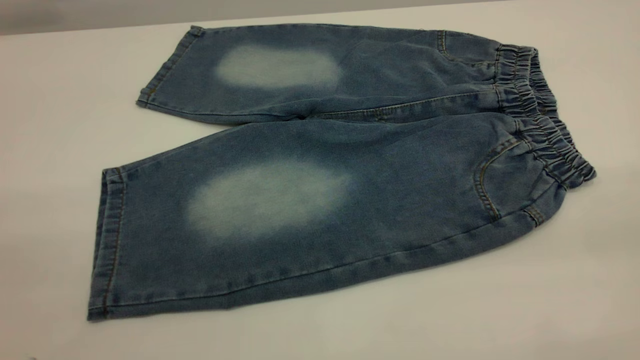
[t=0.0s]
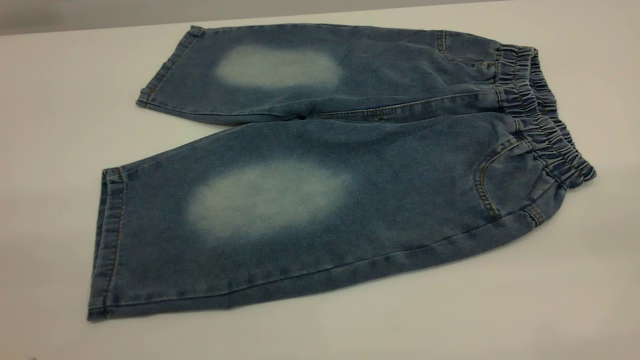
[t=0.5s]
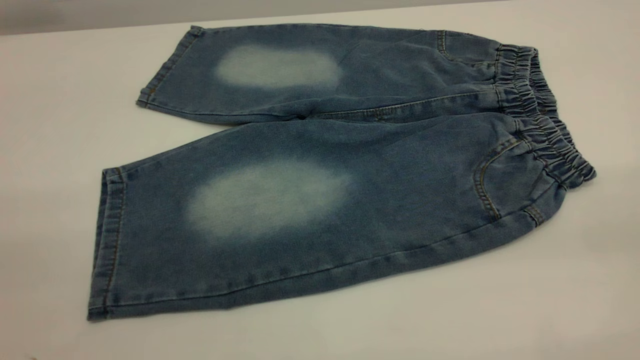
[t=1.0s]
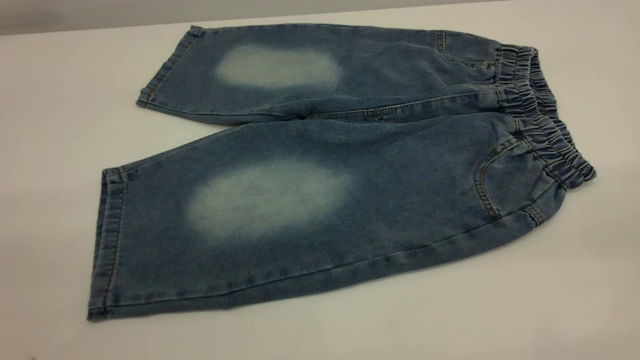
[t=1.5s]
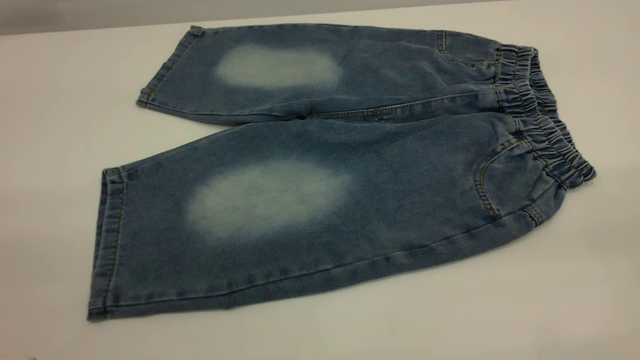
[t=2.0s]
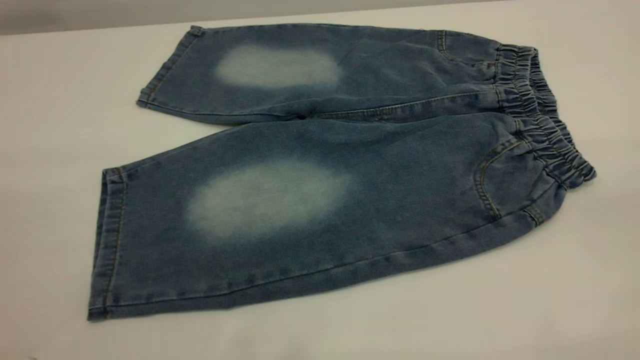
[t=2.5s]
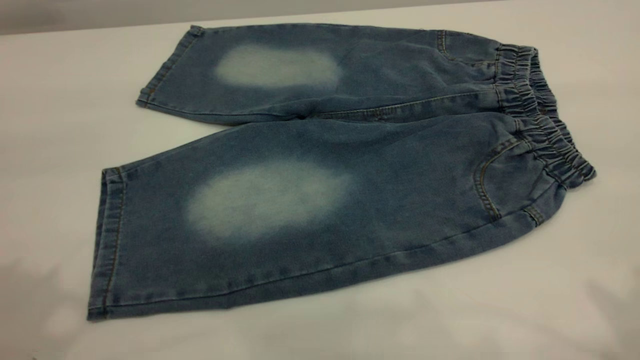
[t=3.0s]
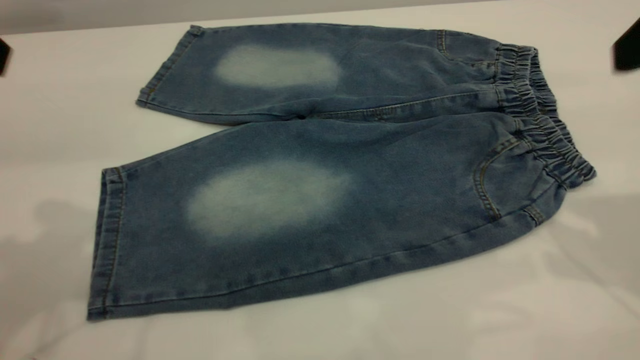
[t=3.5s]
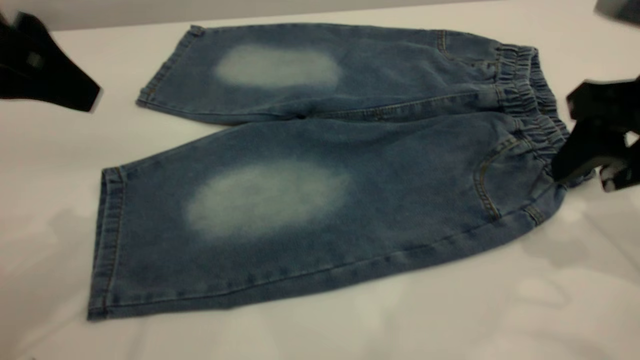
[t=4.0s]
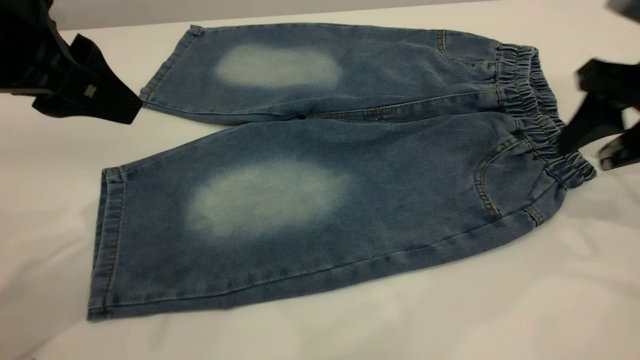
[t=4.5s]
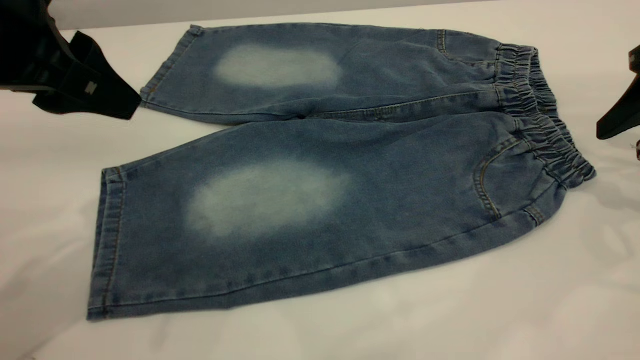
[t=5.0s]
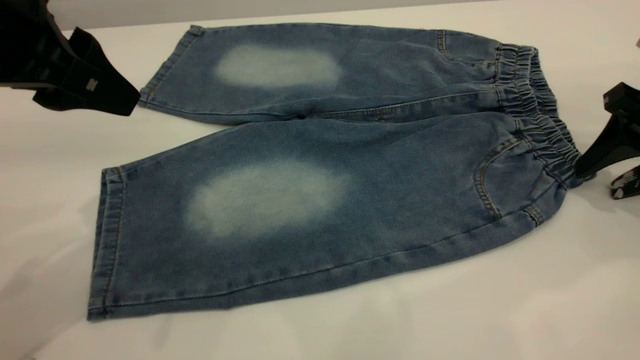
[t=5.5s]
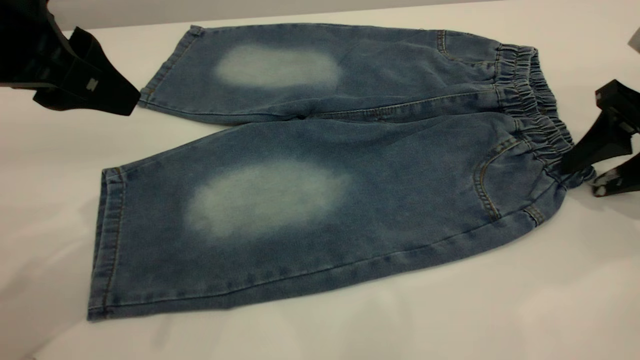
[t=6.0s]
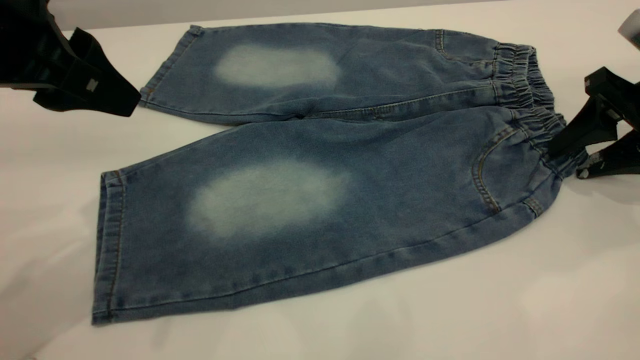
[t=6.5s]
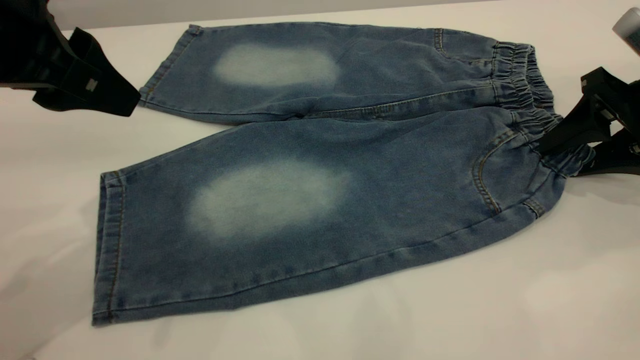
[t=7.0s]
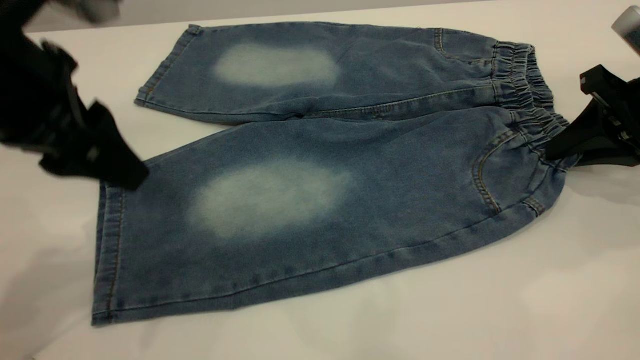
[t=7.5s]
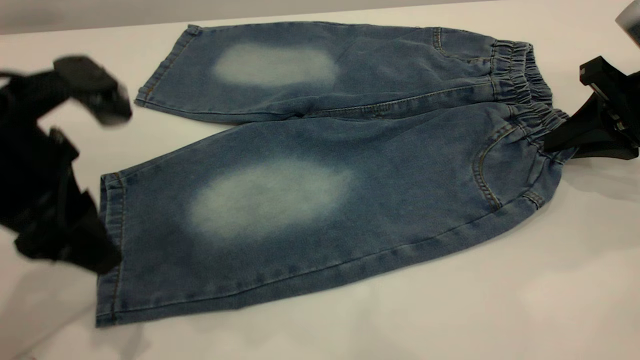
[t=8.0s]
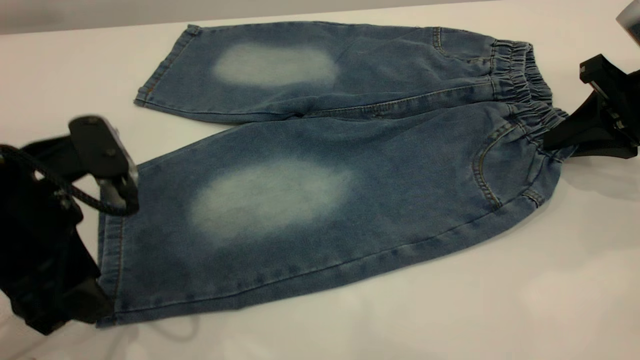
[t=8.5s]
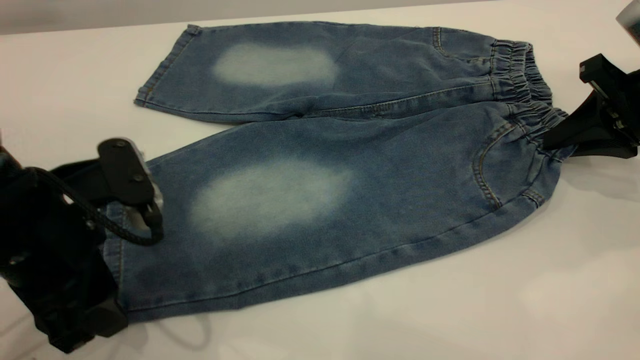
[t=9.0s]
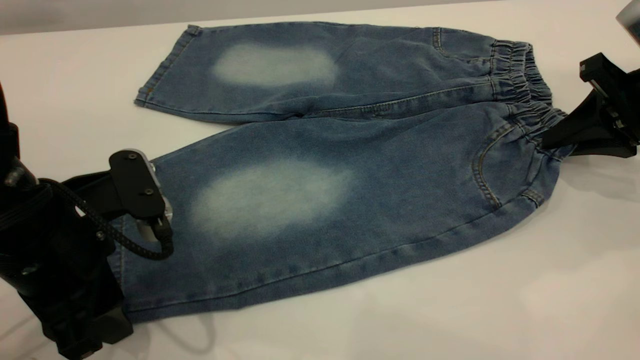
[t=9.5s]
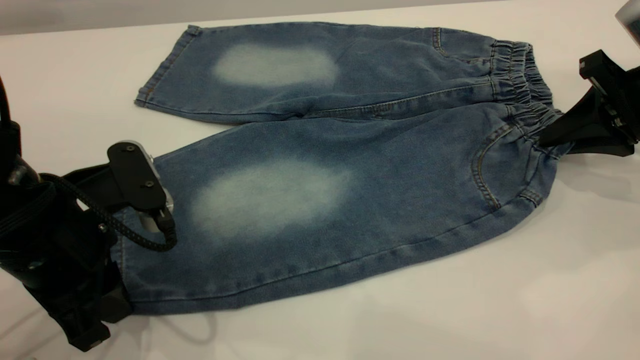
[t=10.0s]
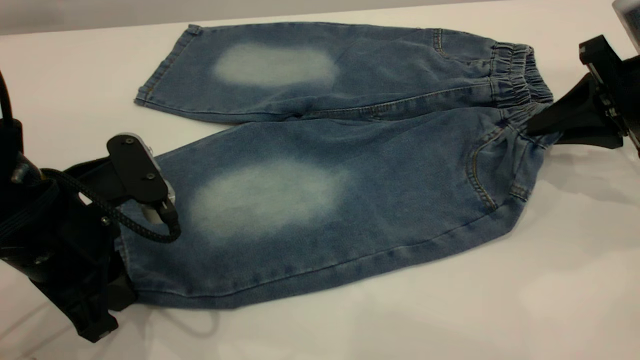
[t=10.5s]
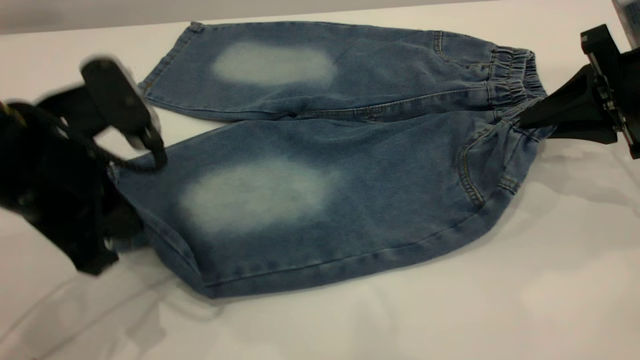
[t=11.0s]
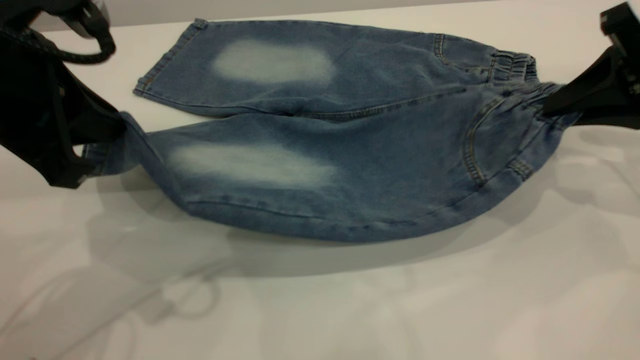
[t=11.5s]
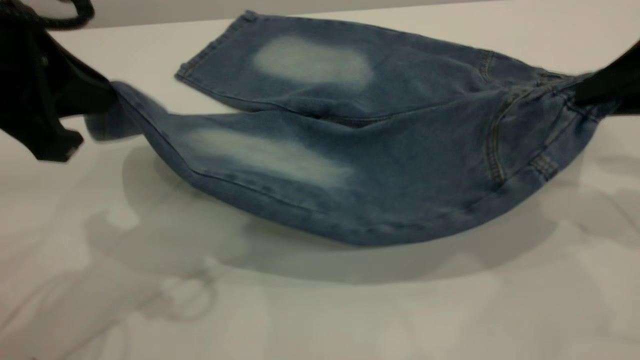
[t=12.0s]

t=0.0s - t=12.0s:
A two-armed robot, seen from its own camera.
t=0.0s - t=2.0s: The two grippers keep their place.
t=2.0s - t=4.0s: The left gripper moves forward, approximately 25 cm. The right gripper heads forward and downward, covering roughly 30 cm.
t=4.0s - t=6.0s: The right gripper moves to the right and downward, approximately 10 cm.
t=6.0s - t=8.0s: The left gripper heads downward, covering approximately 5 cm, while the right gripper closes.
t=8.0s - t=10.0s: The left gripper shifts about 5 cm downward, and closes.
t=10.0s - t=12.0s: The right gripper heads upward and backward, covering roughly 10 cm, while the left gripper is displaced upward by approximately 15 cm.

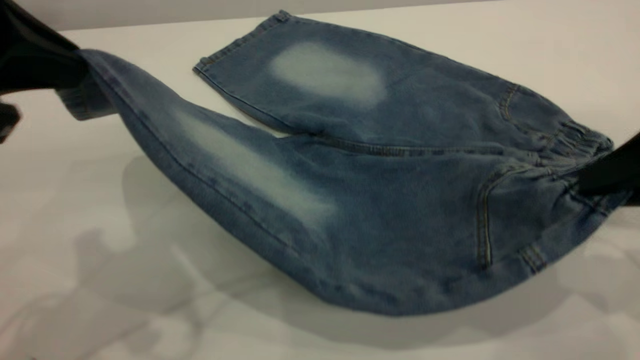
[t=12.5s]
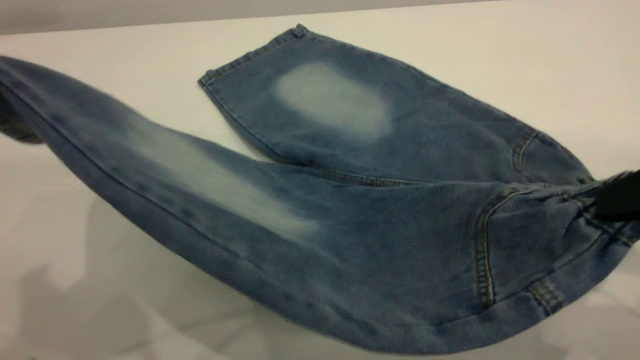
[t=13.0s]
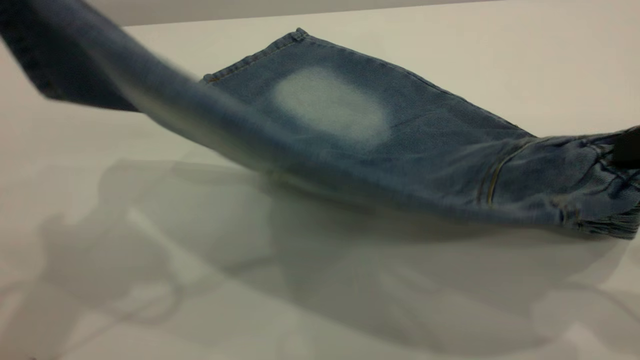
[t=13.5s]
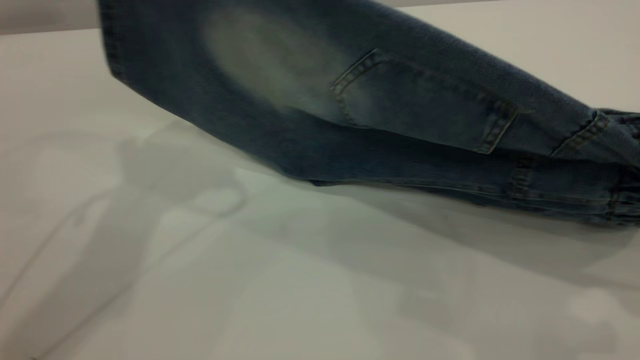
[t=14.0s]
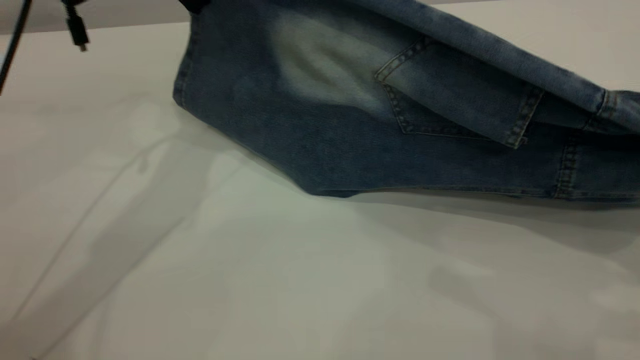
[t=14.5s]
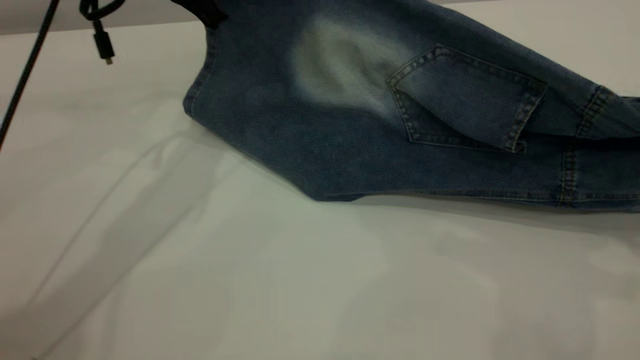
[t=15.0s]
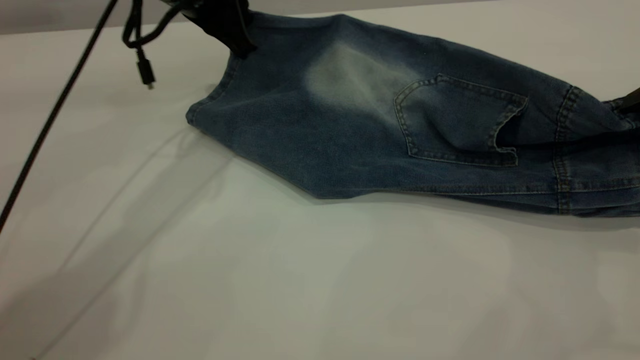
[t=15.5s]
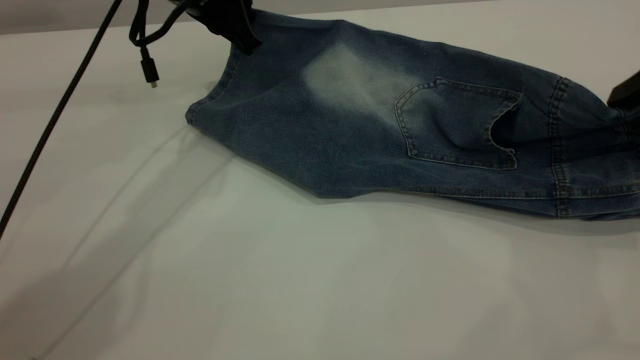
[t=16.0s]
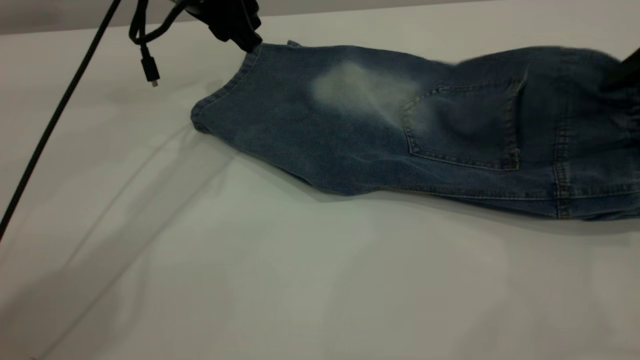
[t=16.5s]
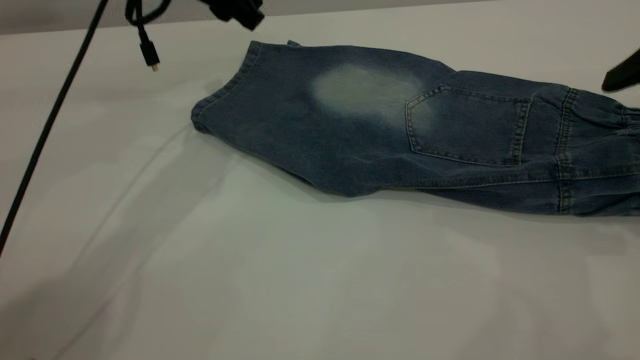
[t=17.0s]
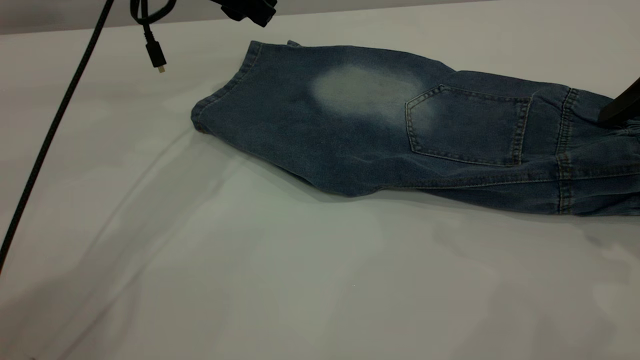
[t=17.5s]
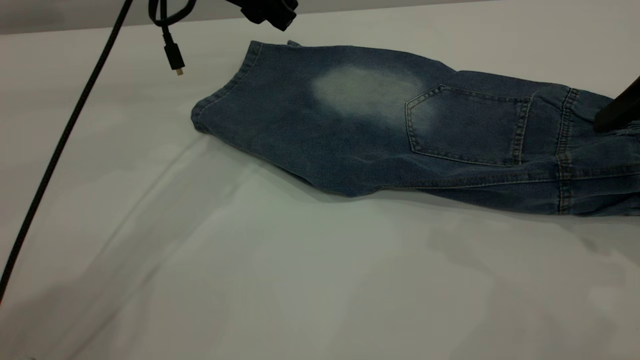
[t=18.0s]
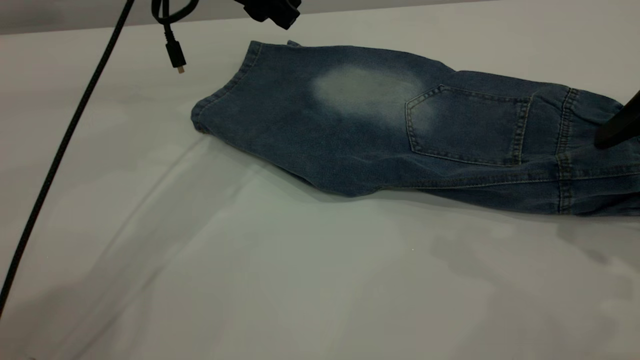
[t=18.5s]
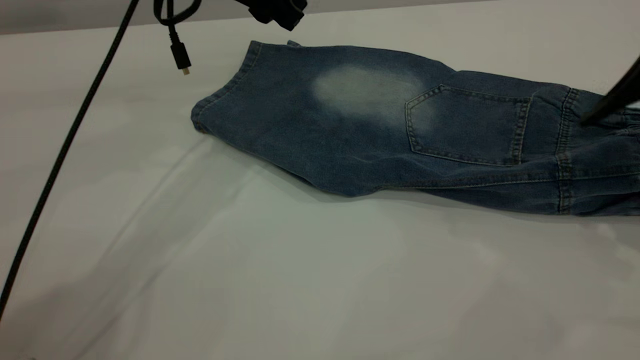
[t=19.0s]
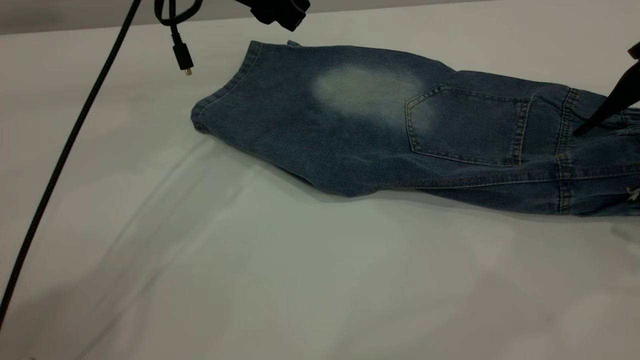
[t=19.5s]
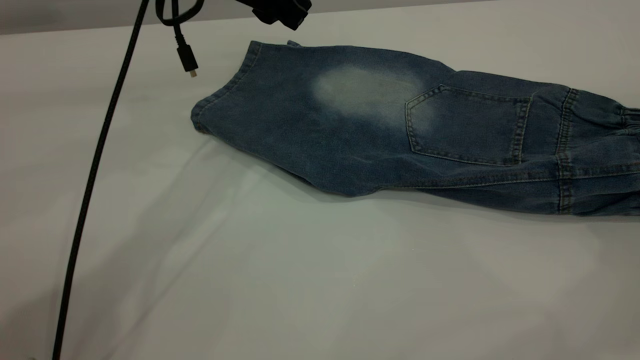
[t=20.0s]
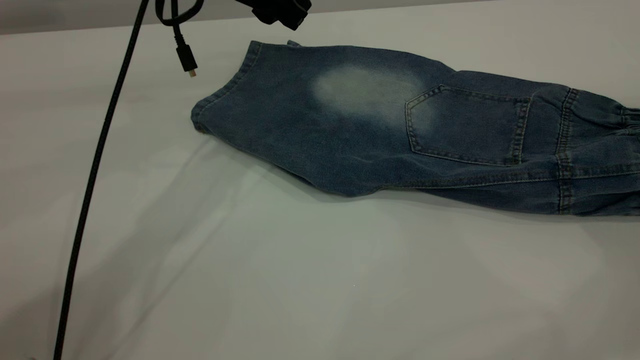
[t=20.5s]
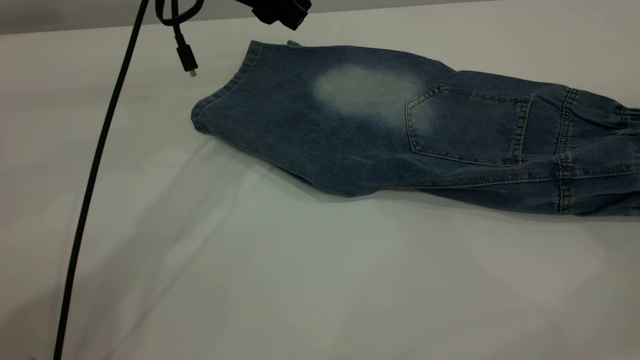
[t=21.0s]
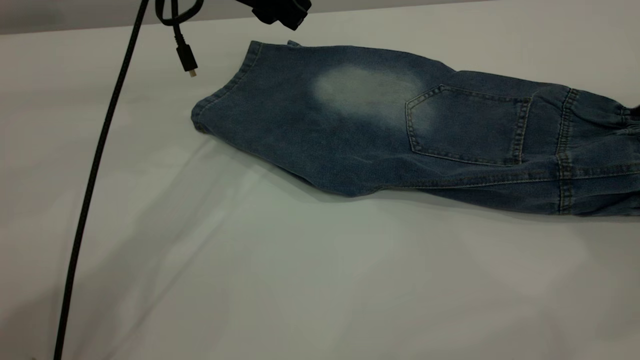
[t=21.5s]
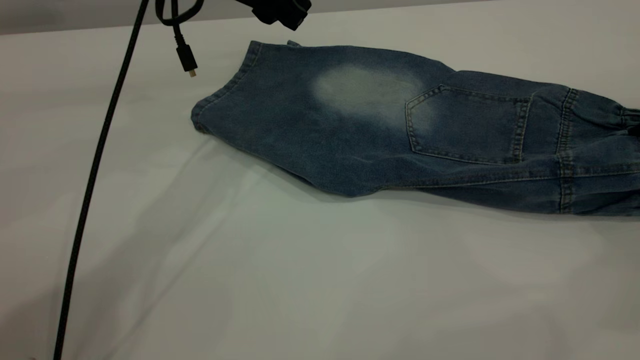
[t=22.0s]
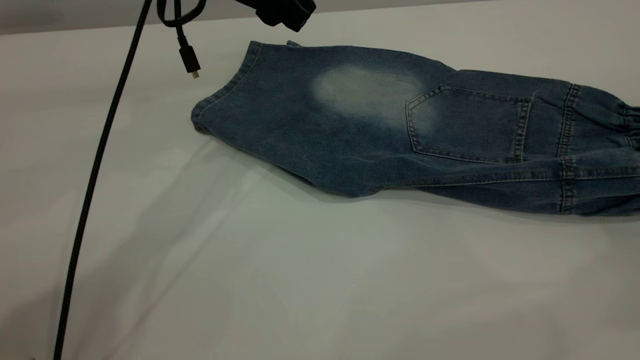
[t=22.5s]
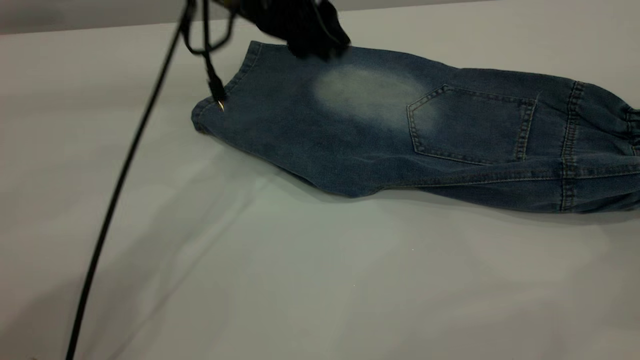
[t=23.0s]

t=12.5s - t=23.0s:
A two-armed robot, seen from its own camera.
Step, t=12.5s - t=19.5s: Fold the bottom of the pants upward.
t=12.5s - t=14.5s: The left gripper heads forward, covering about 20 cm.
t=14.5s - t=16.5s: The left gripper moves about 5 cm, and opens up; the right gripper travels forward by approximately 10 cm, and opens its fingers.
t=19.0s - t=21.0s: The right gripper moves to the right, roughly 5 cm.
t=21.0s - t=23.0s: The right gripper closes its fingers; the left gripper changes place by approximately 5 cm.
